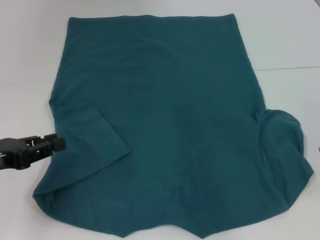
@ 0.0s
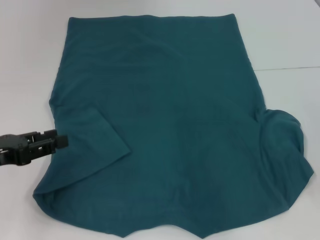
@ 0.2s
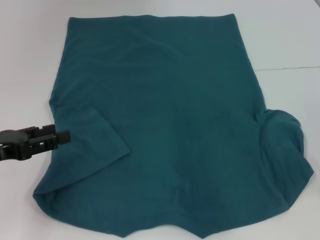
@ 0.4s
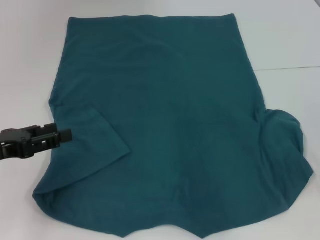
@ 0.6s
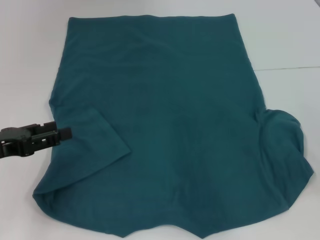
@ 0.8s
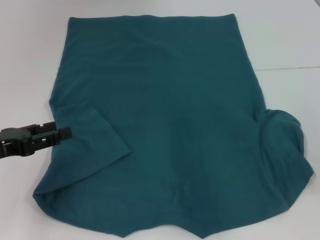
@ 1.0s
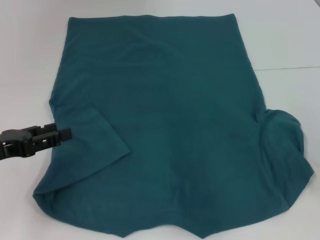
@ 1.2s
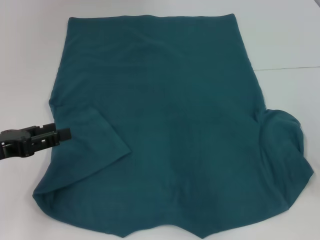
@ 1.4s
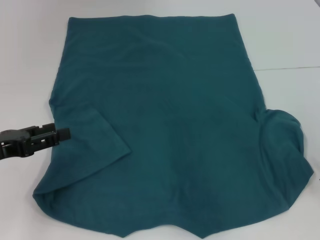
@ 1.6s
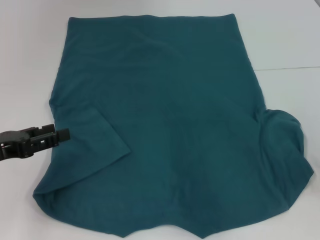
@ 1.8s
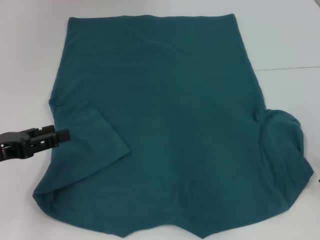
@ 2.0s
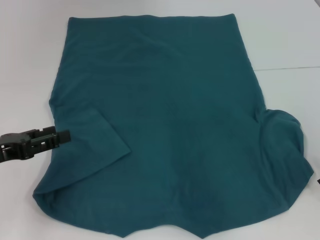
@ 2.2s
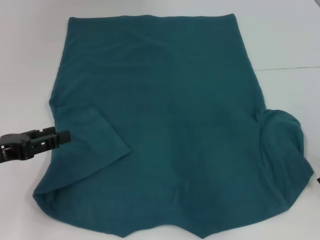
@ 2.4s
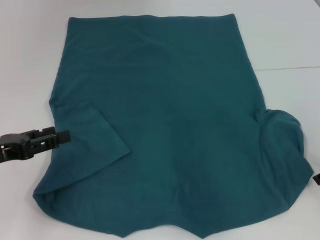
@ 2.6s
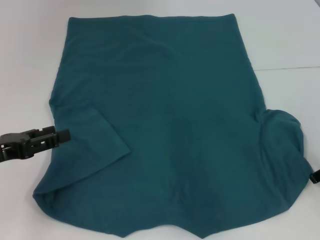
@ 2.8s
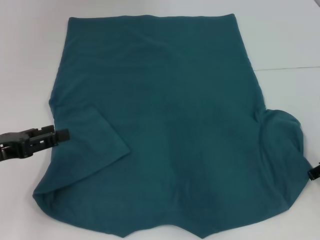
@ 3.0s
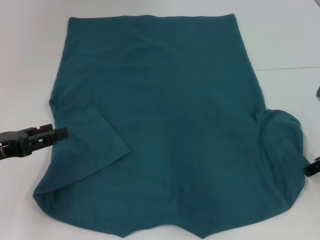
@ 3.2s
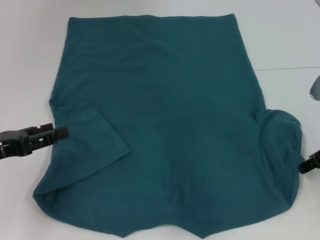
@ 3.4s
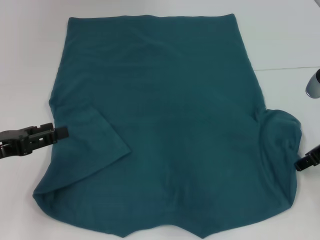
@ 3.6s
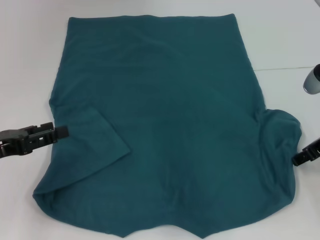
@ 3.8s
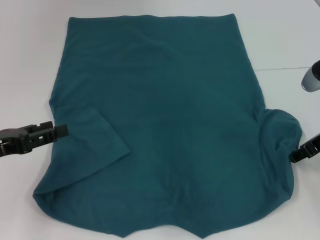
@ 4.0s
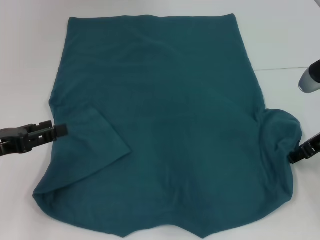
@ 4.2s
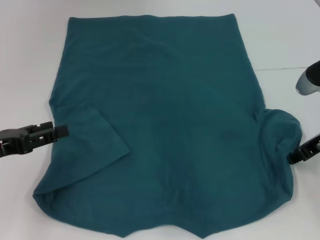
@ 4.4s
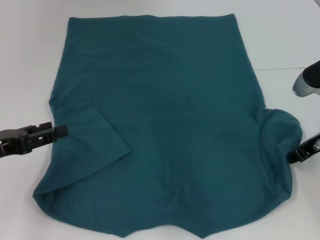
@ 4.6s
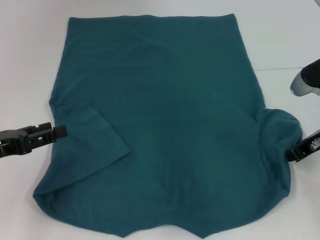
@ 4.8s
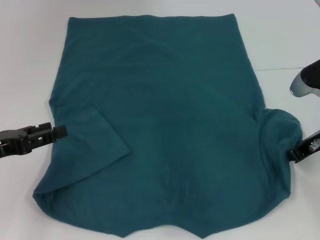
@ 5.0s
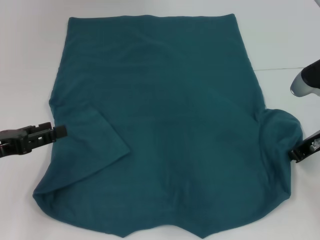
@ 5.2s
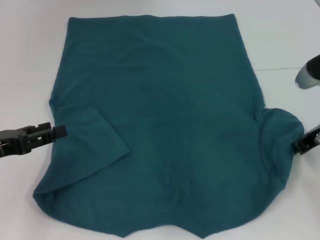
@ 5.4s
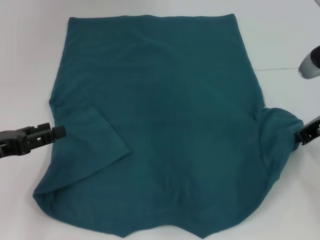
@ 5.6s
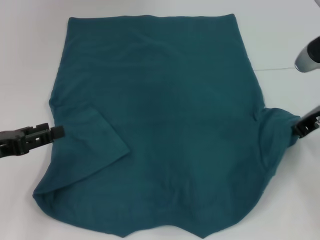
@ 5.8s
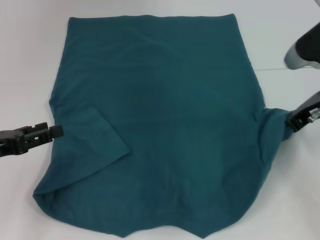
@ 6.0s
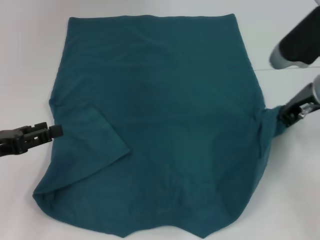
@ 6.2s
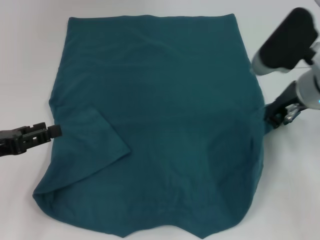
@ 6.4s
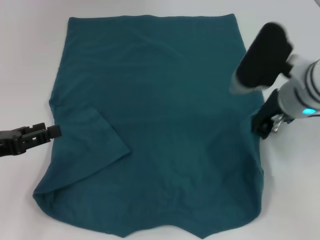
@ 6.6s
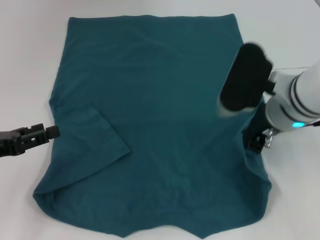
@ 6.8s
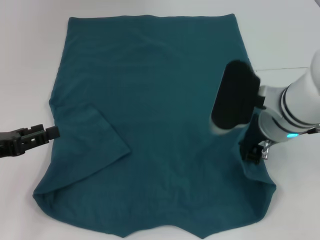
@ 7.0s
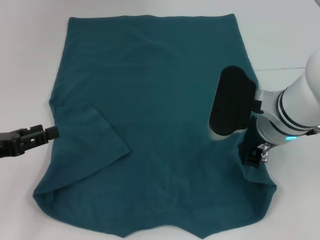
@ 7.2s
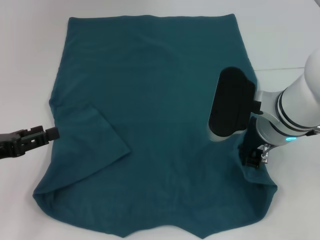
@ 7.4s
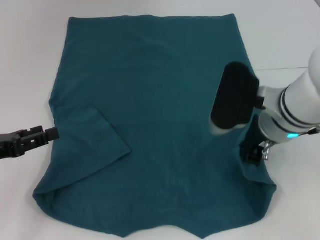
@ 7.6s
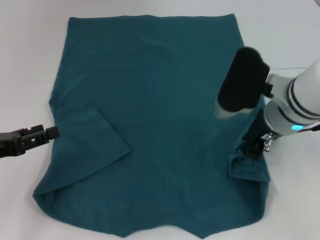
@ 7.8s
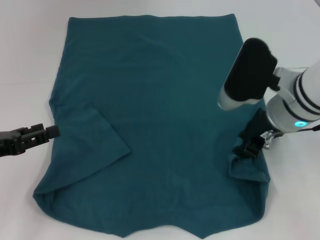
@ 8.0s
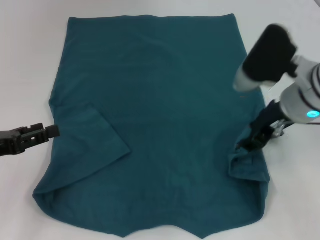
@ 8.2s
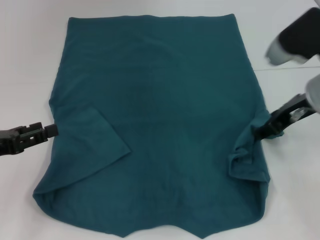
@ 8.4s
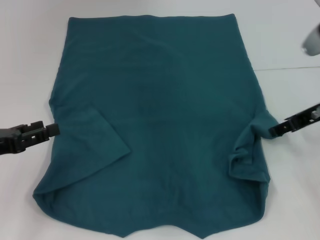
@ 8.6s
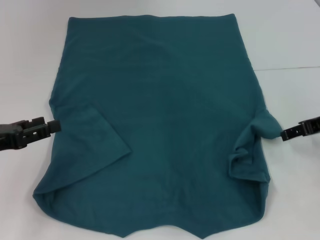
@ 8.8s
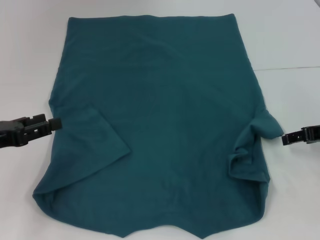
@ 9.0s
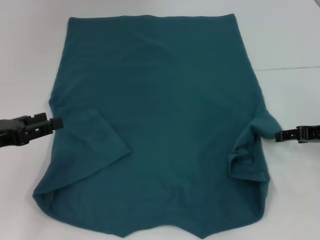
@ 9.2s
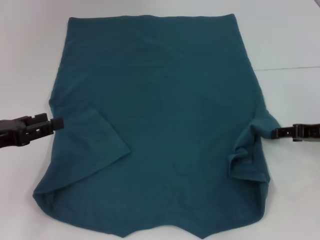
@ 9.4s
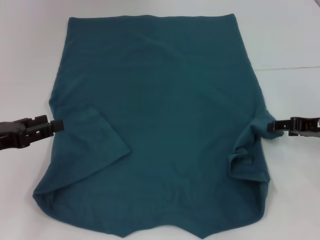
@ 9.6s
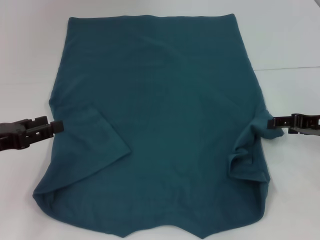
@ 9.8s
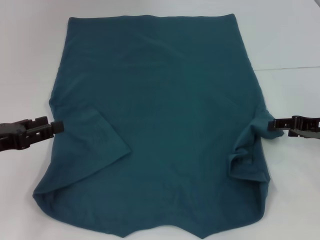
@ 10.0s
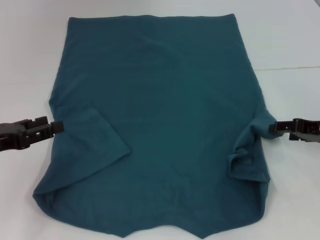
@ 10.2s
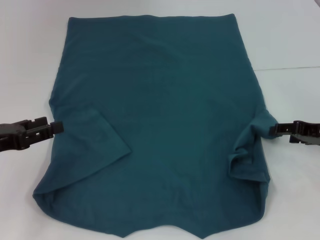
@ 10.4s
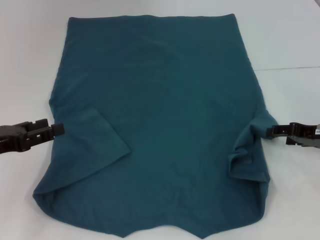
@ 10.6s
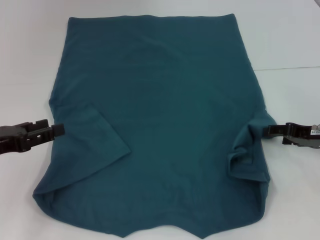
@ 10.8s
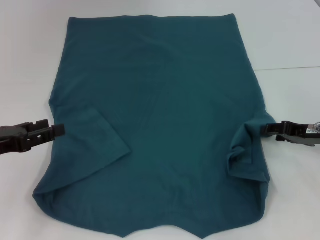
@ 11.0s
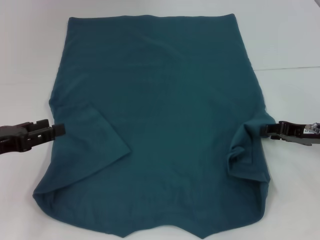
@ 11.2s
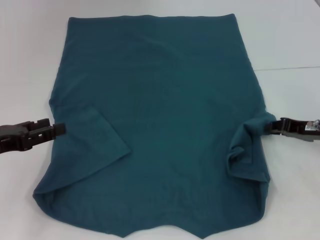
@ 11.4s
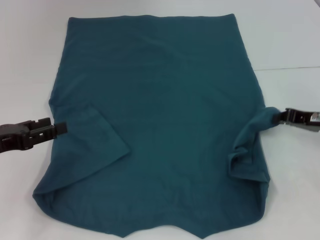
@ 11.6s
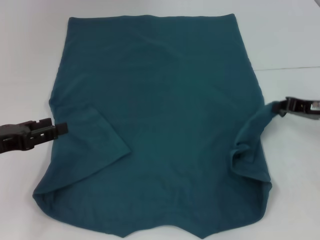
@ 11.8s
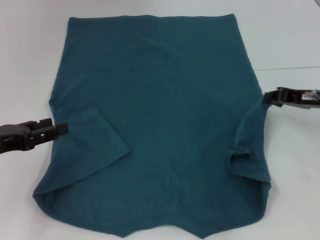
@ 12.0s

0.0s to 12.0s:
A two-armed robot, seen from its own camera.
0.0s to 1.6s: The left gripper opens its fingers.
3.0s to 4.4s: There are only small adjustments of the grippers.
4.4s to 6.0s: The right gripper shifts by approximately 5 cm, and closes its fingers.
6.0s to 7.6s: The right gripper is displaced to the left by approximately 10 cm.
7.6s to 9.0s: The right gripper moves to the right, about 15 cm, and opens up.
10.4s to 12.0s: The right gripper closes its fingers.

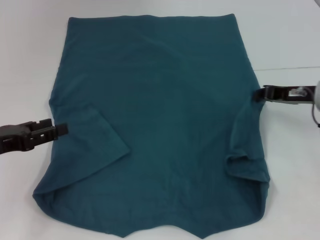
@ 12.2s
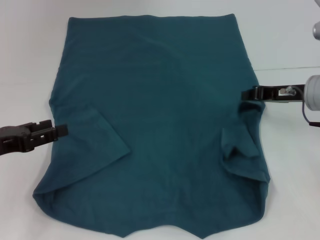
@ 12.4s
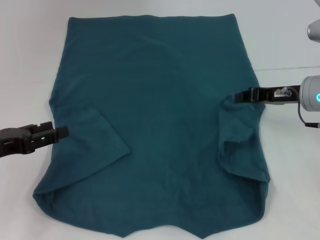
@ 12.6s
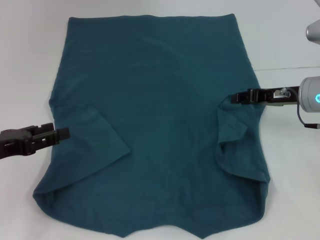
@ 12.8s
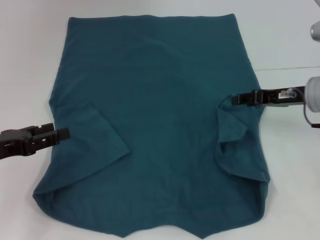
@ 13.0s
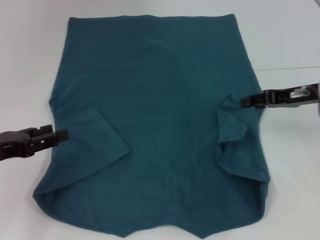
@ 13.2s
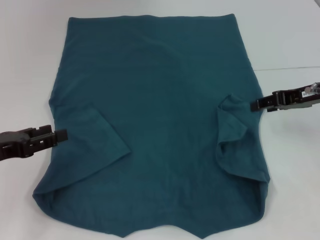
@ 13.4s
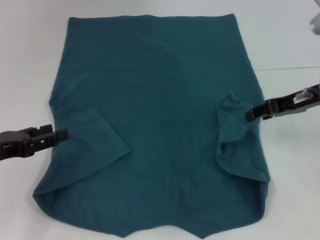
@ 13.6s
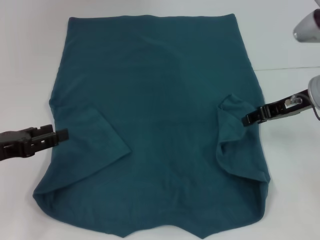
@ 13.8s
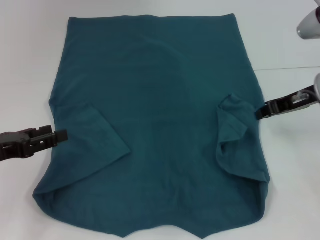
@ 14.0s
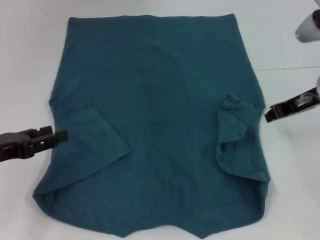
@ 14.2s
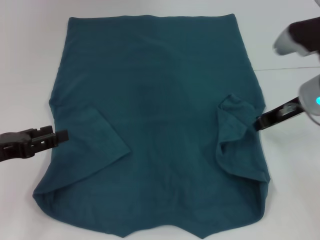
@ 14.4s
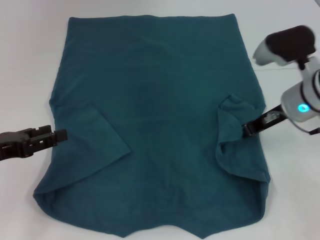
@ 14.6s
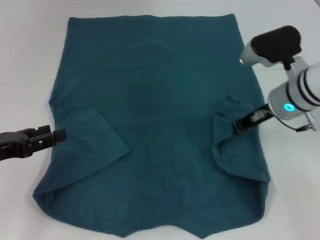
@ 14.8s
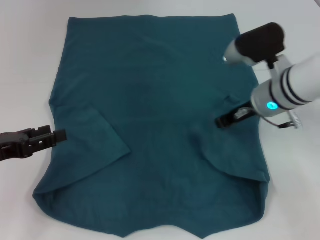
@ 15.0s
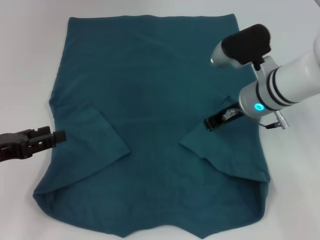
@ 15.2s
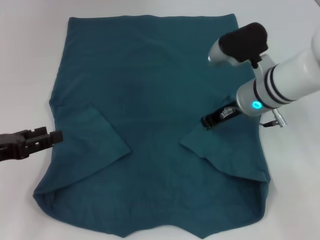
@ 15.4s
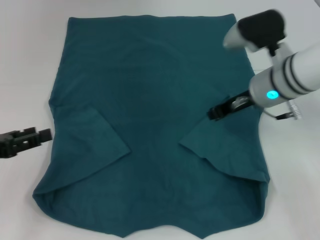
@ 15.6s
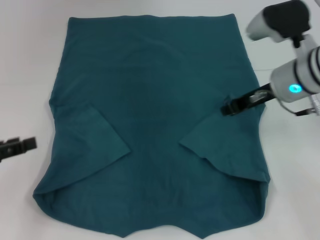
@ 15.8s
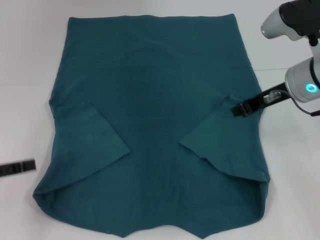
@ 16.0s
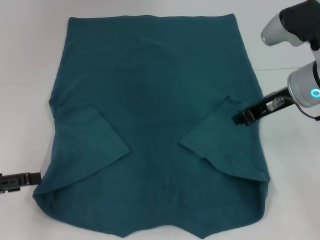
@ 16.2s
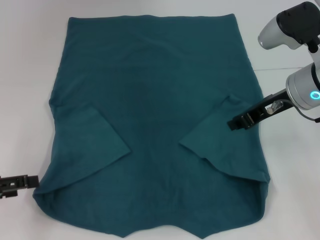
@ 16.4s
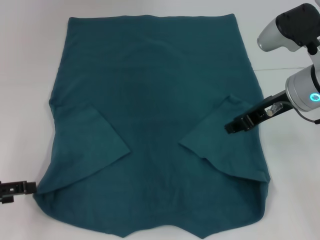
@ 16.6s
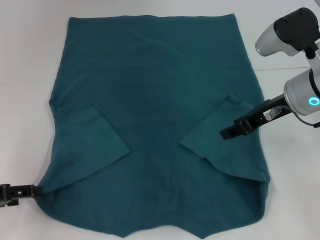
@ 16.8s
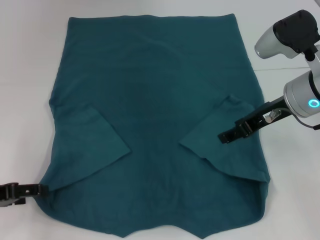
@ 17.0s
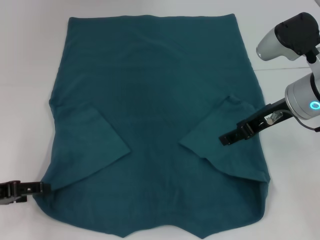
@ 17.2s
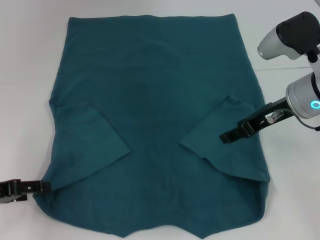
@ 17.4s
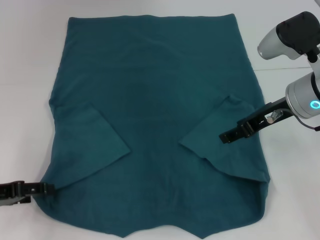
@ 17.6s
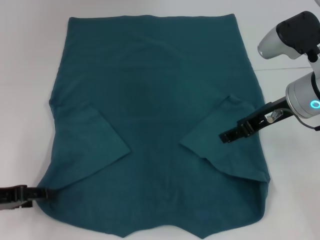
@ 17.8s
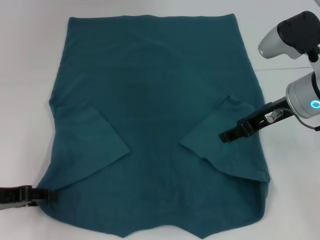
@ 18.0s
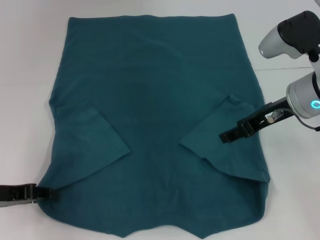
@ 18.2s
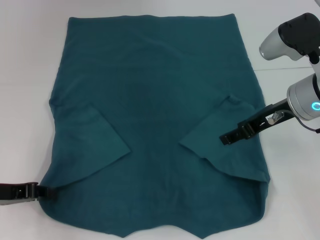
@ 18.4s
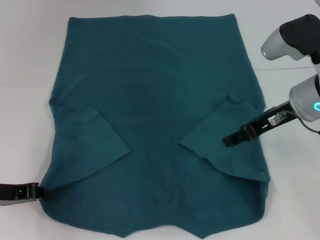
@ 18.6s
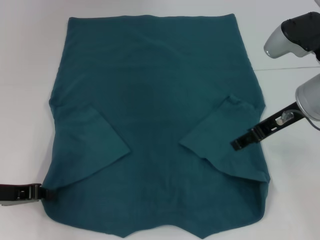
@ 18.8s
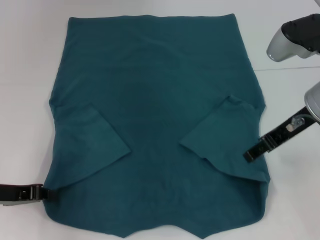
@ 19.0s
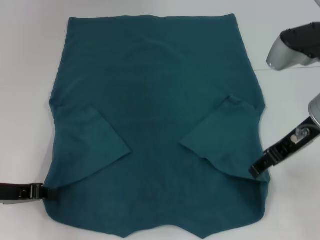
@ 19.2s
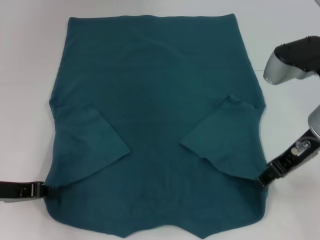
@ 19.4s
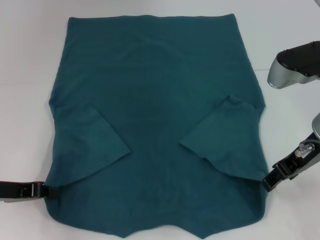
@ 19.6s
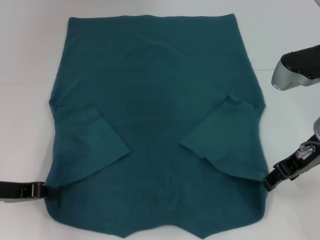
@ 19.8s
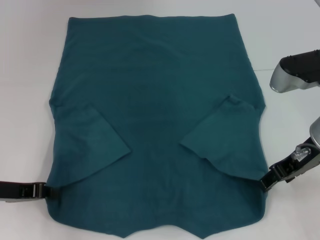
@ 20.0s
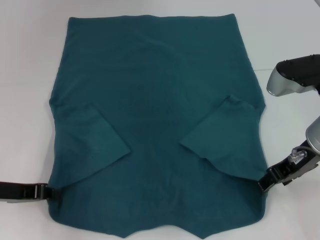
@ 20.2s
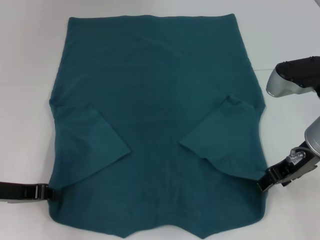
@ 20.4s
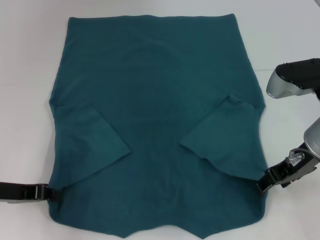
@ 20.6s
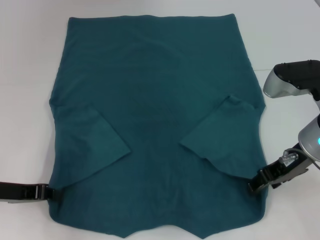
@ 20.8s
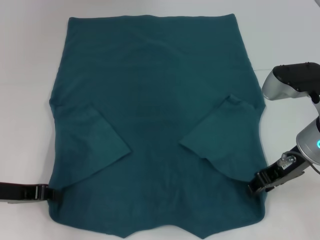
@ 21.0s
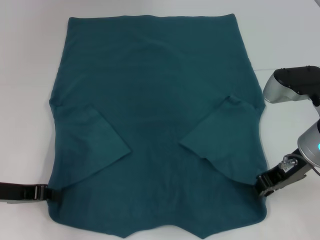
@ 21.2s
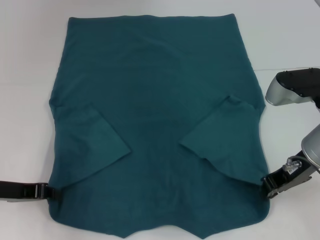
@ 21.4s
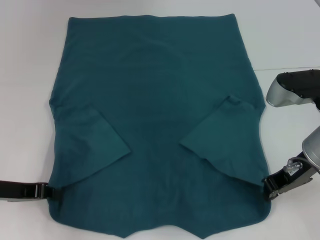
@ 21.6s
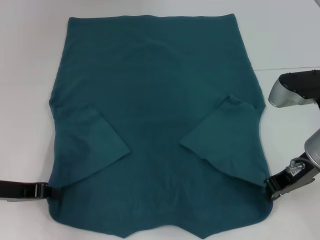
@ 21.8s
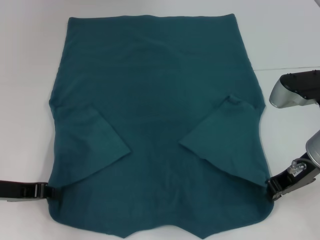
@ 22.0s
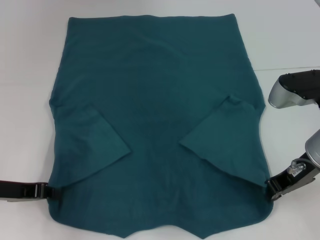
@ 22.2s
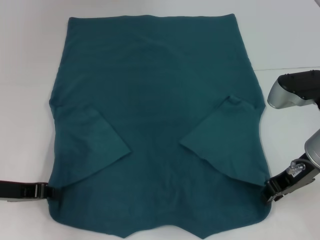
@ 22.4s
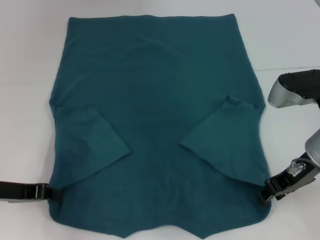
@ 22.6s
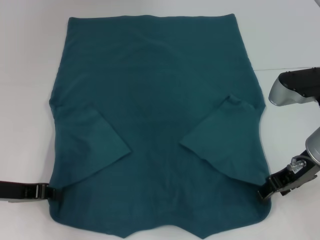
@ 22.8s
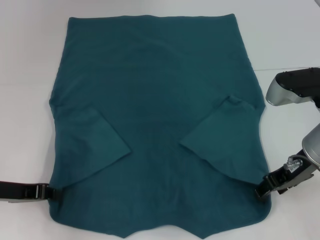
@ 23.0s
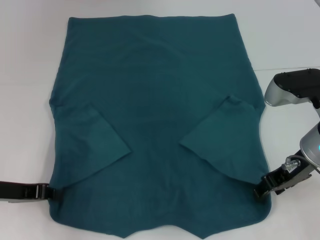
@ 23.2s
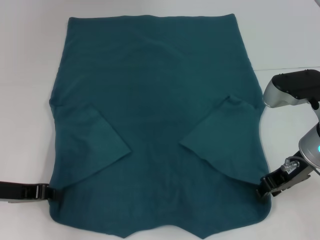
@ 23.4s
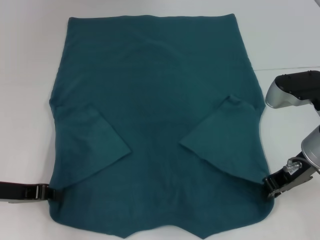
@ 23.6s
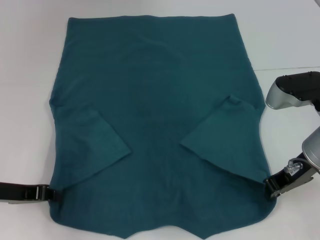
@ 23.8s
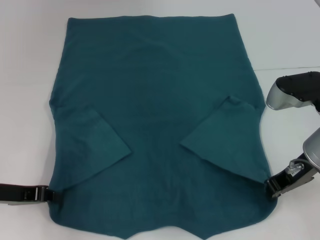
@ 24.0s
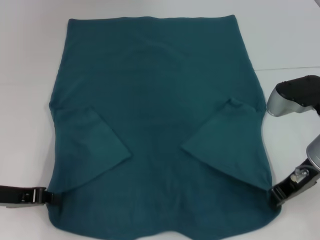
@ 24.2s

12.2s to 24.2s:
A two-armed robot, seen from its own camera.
Step, 12.2s to 15.6s: Fold the bottom right sleeve to the right.
Step, 15.8s to 18.8s: Grab the bottom left corner with your left hand.
Step, 19.0s to 24.2s: Grab the bottom right corner with your right hand.
12.2s to 13.8s: The right gripper opens its fingers.
13.8s to 15.2s: The right gripper travels to the left by some 10 cm, and closes its fingers.
15.2s to 16.6s: The right gripper is displaced upward by roughly 5 cm.
16.6s to 18.2s: The left gripper shifts by about 5 cm, while the right gripper opens up.
18.2s to 19.8s: The left gripper closes up.
19.8s to 21.2s: The grippers make only small movements.
21.2s to 22.6s: Neither gripper changes place.
22.6s to 24.2s: The right gripper opens, then closes once more.
